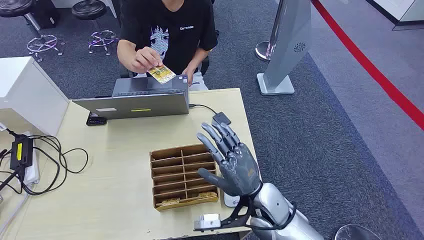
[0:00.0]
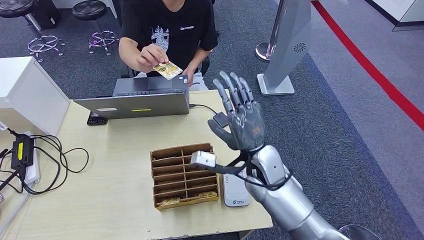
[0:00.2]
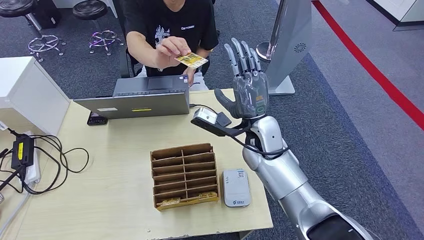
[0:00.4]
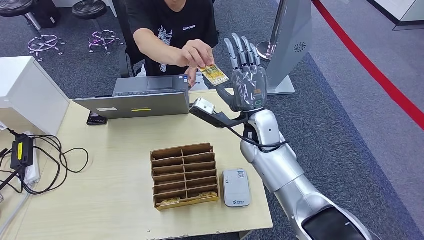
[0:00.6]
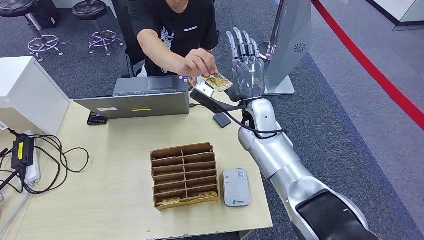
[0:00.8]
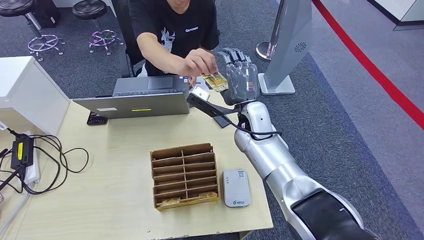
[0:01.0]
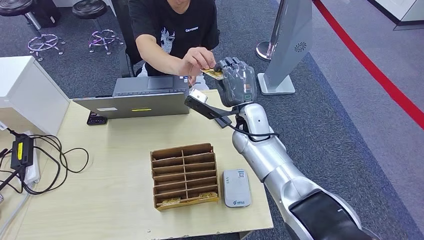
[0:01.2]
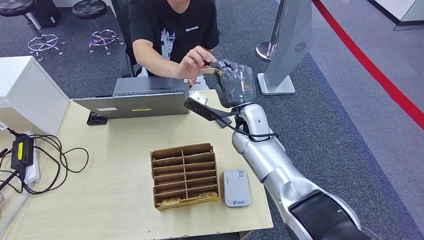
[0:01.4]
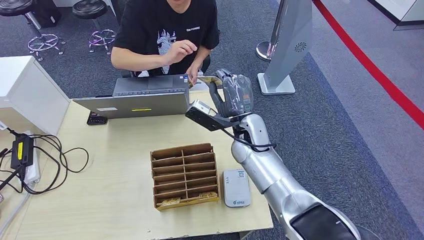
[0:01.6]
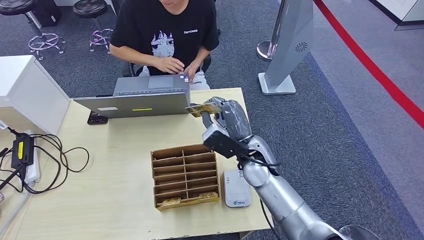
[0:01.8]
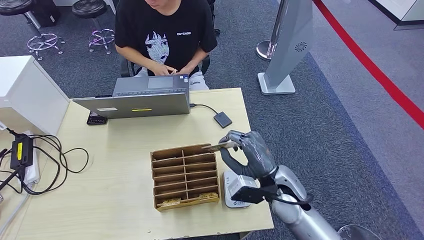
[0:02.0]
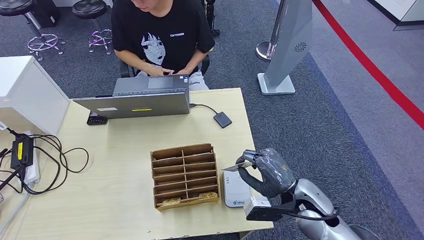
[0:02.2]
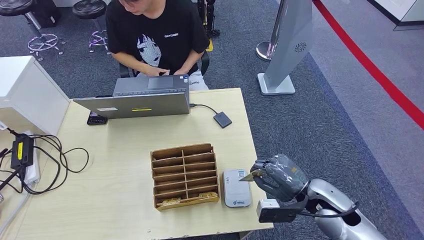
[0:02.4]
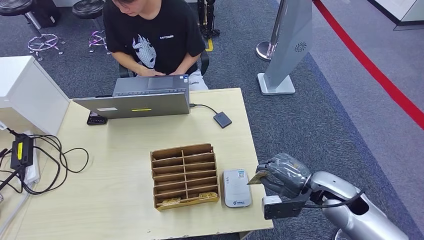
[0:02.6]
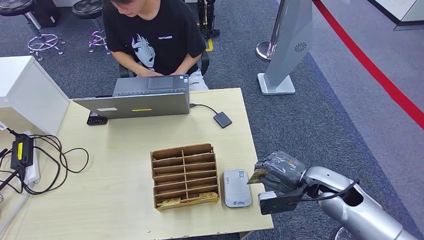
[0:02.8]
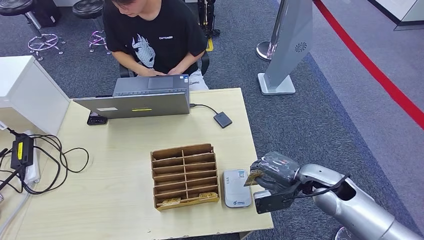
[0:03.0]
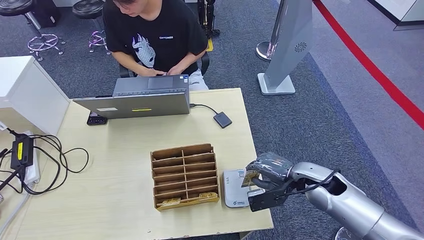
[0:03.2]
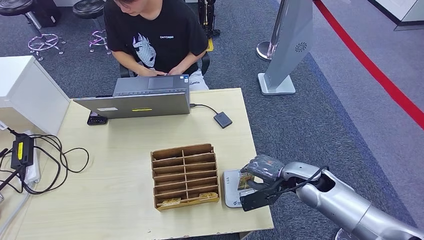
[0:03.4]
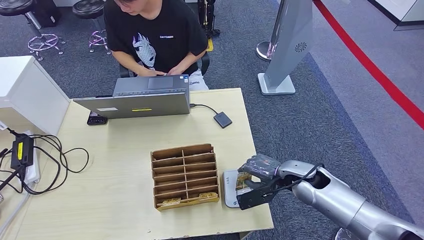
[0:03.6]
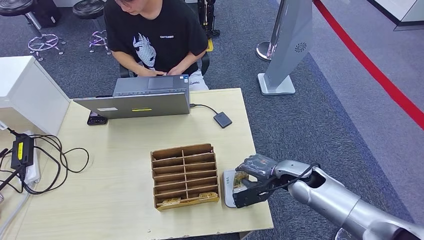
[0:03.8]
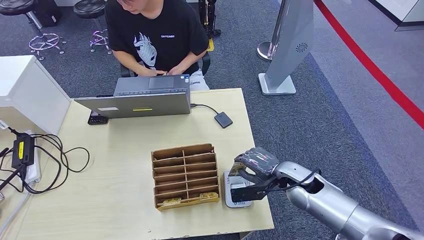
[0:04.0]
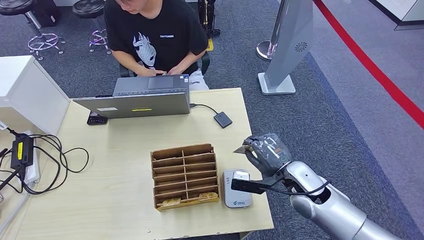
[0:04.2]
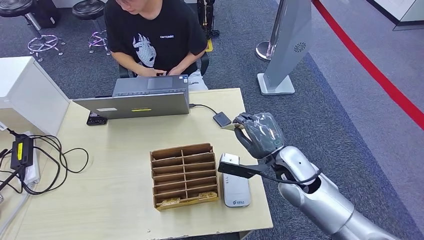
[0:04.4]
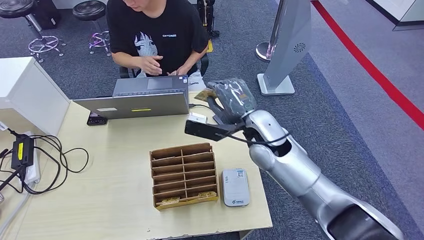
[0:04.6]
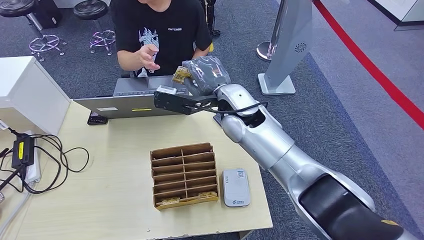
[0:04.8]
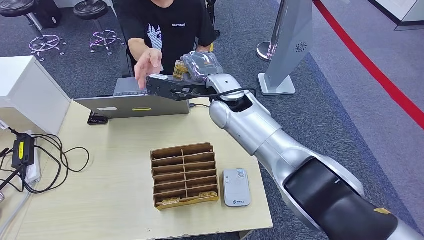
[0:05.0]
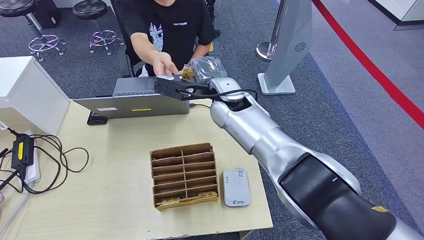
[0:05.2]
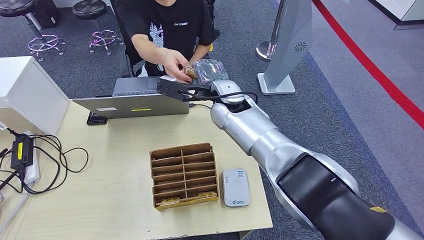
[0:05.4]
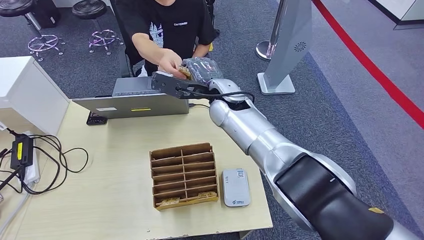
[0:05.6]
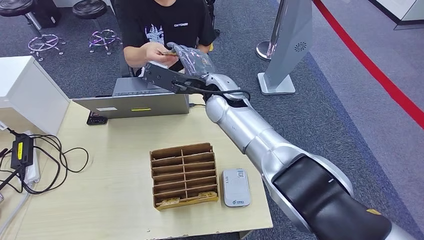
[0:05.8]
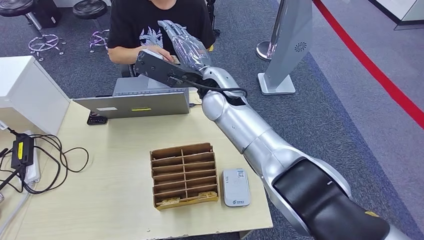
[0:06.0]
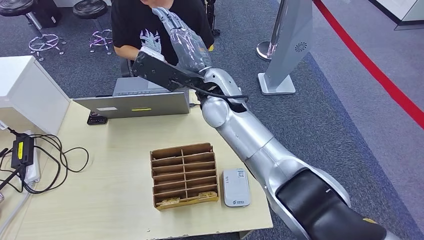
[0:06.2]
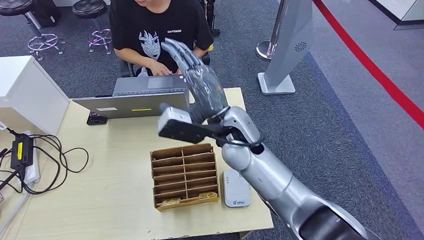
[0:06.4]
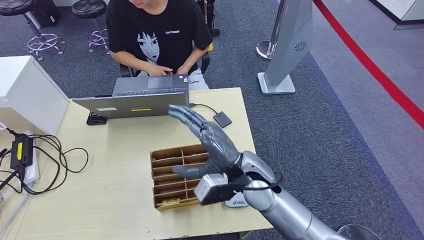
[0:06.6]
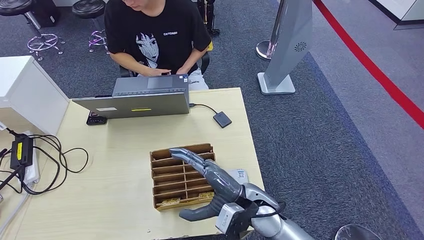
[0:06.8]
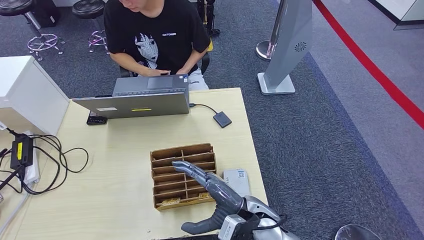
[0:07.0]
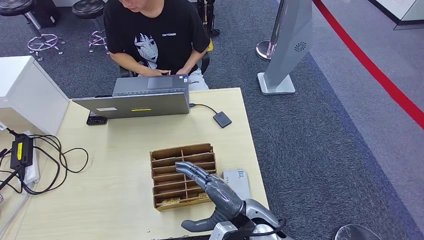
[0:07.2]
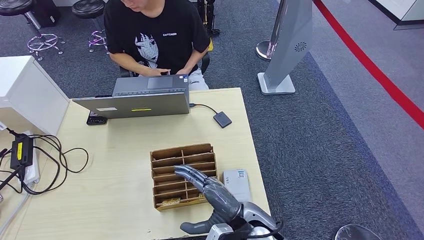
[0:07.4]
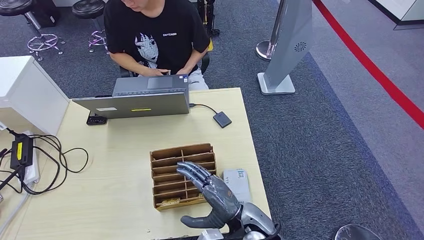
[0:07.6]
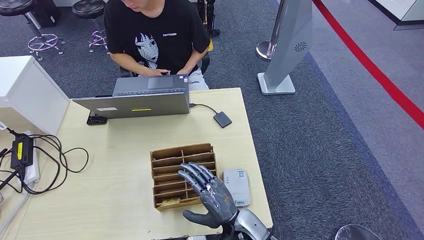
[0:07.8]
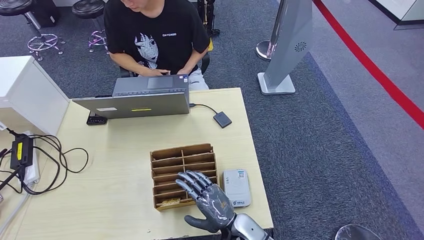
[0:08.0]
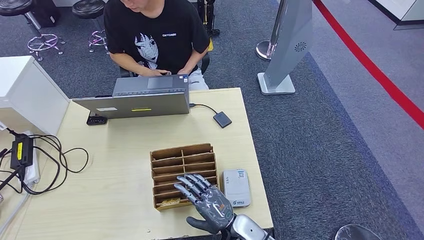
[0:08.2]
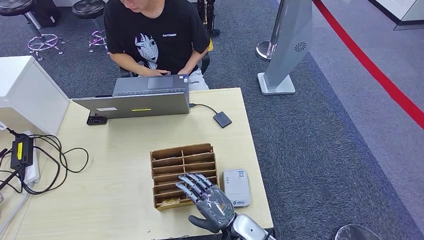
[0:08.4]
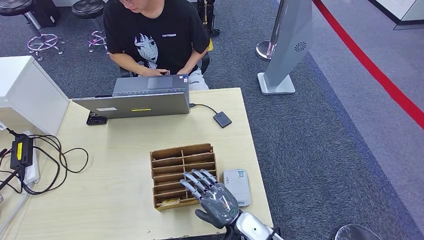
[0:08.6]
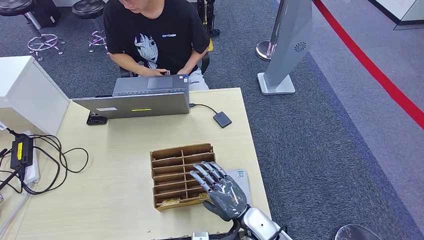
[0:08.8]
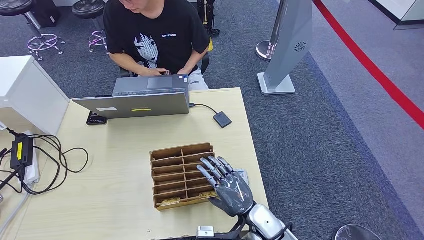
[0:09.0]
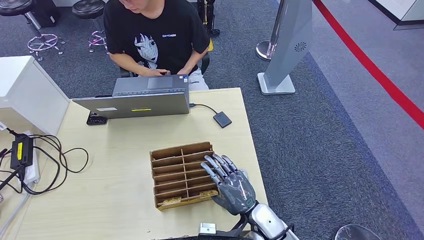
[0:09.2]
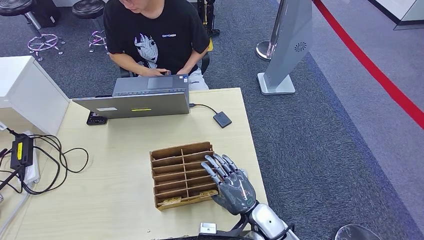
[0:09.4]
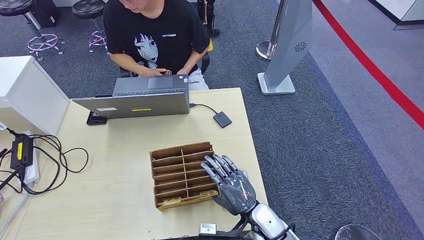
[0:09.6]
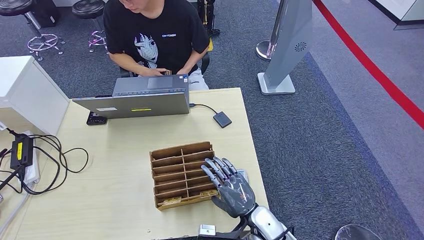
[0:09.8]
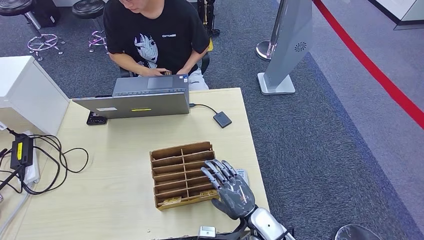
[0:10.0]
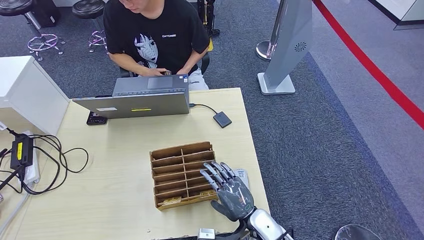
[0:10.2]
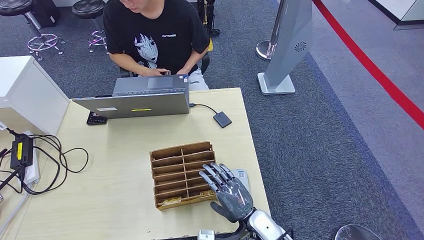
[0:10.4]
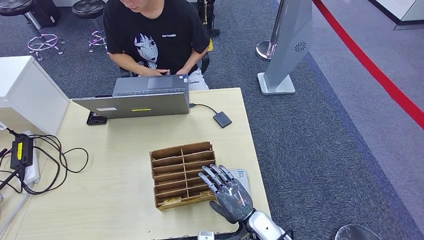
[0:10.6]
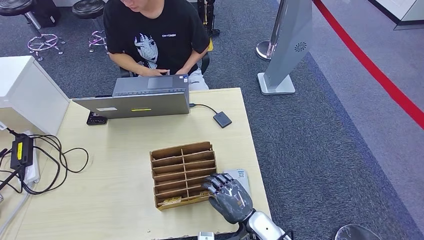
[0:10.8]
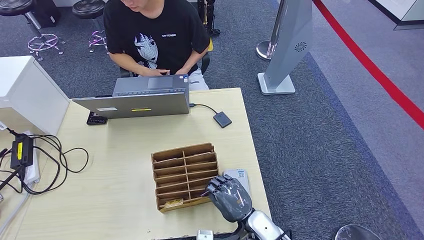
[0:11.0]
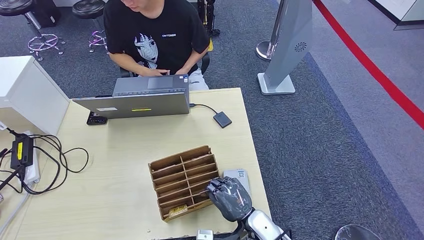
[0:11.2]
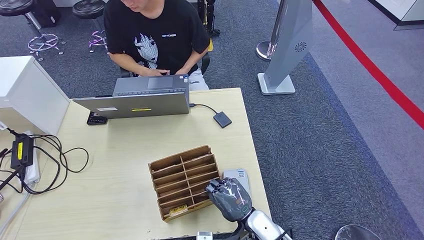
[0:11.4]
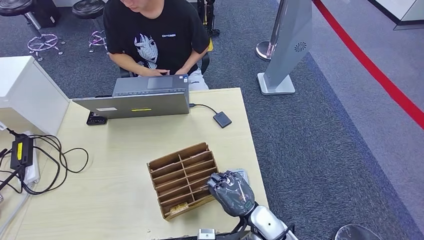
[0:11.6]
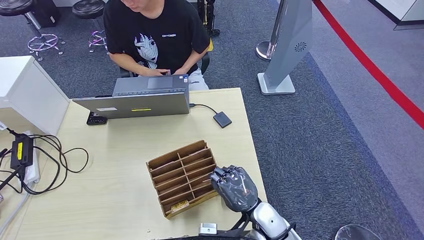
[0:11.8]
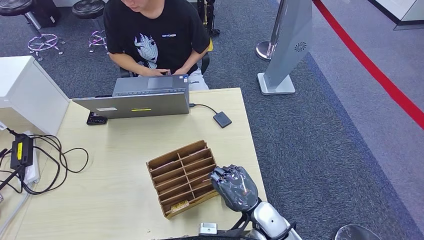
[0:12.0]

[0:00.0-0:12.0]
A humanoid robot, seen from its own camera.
Step, 0:00.0 to 0:02.4: Take the ID card from the person's hand.
Step, 0:02.6 to 0:05.2: Place the ID card on the card reader.
Step, 0:05.4 to 0:08.4: Hand the ID card to the person.
0:01.6 to 0:03.0: The right hand shifts some 25 cm to the right and backward.
0:03.0 to 0:04.4: The right hand moves to the left, about 10 cm.
0:04.4 to 0:06.0: The right hand goes roughly 25 cm to the left, upward and forward.
0:06.0 to 0:07.6: The right hand travels backward and downward by approximately 35 cm.
0:07.6 to 0:09.0: The right hand moves roughly 5 cm.
0:09.0 to 0:12.0: The hands make only small movements.

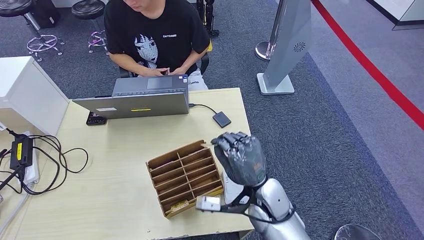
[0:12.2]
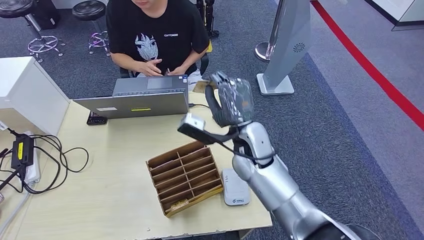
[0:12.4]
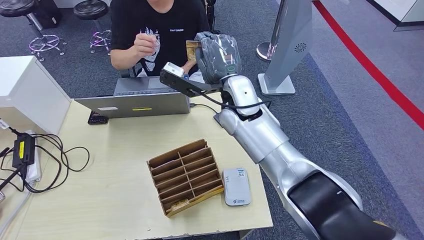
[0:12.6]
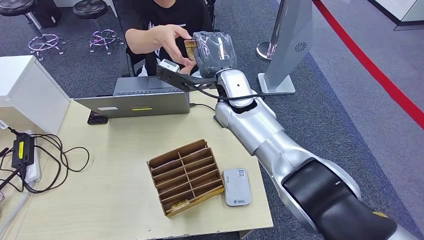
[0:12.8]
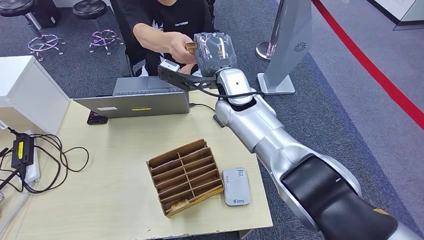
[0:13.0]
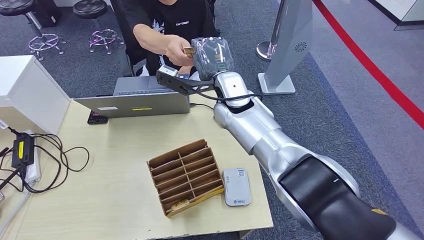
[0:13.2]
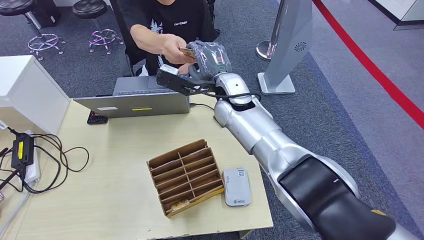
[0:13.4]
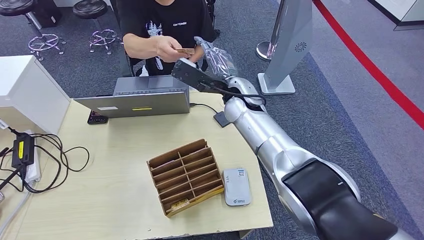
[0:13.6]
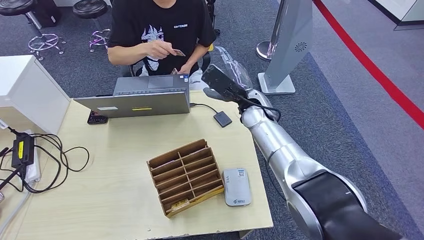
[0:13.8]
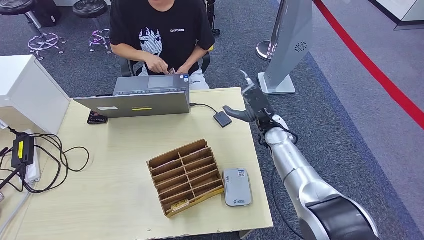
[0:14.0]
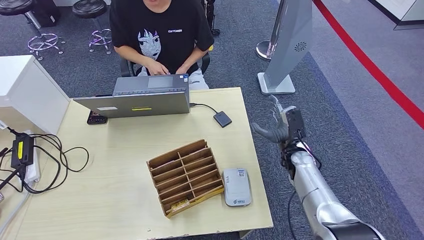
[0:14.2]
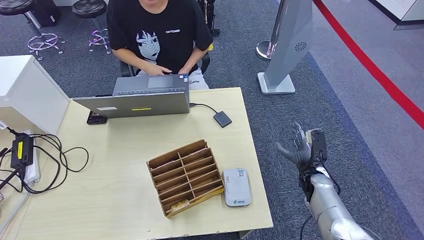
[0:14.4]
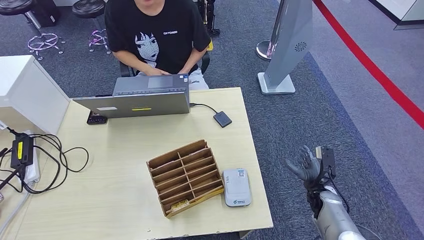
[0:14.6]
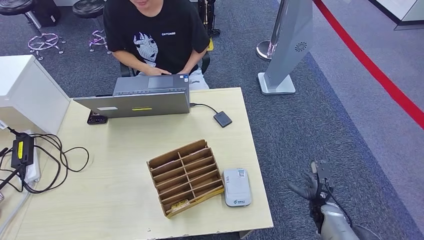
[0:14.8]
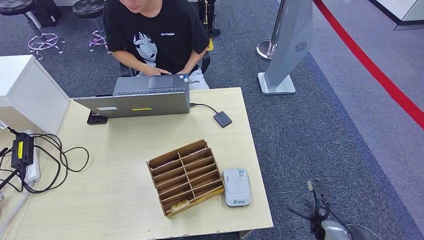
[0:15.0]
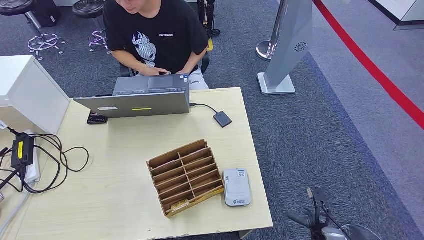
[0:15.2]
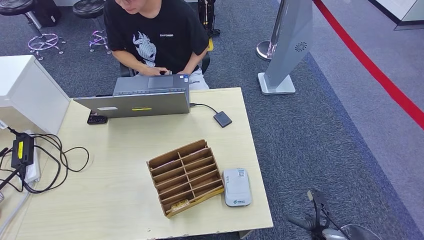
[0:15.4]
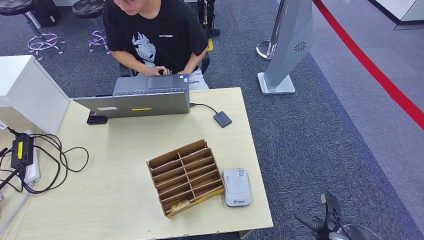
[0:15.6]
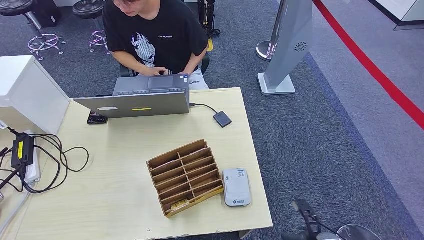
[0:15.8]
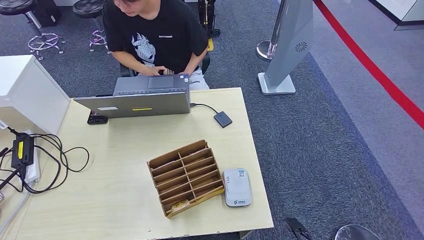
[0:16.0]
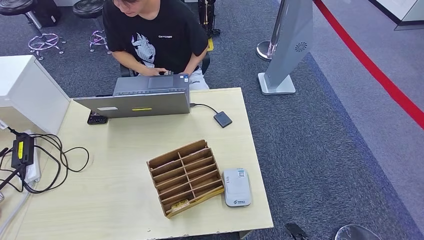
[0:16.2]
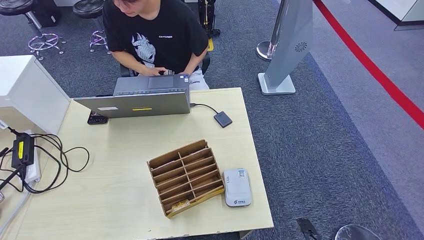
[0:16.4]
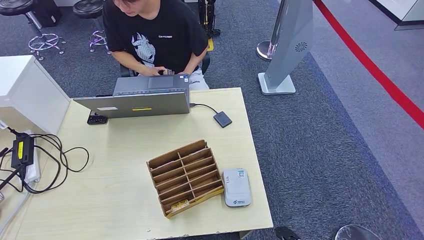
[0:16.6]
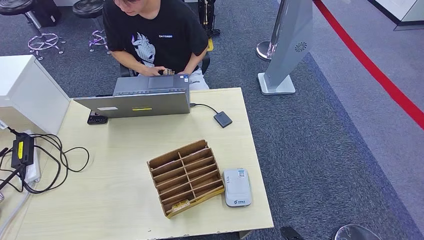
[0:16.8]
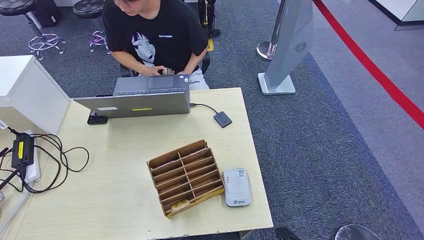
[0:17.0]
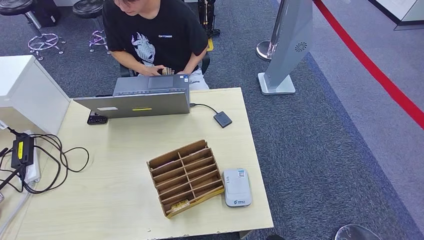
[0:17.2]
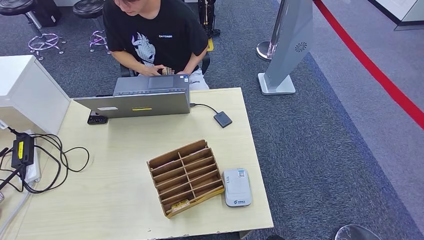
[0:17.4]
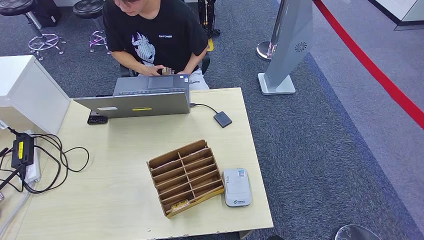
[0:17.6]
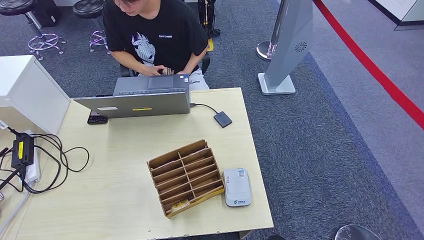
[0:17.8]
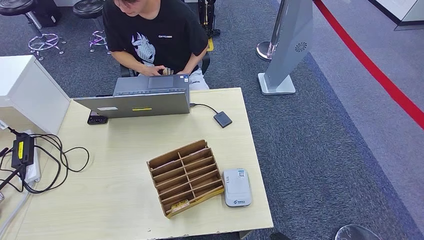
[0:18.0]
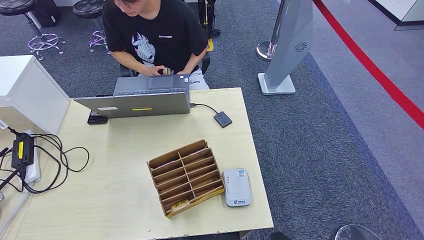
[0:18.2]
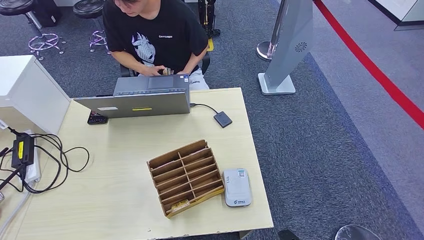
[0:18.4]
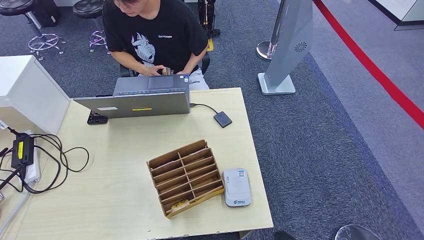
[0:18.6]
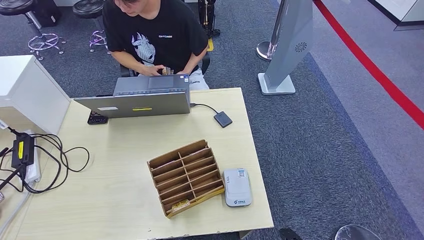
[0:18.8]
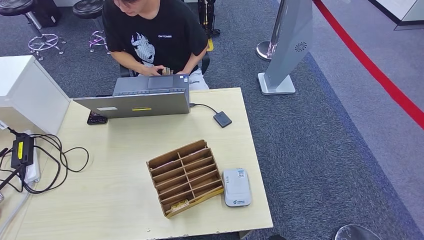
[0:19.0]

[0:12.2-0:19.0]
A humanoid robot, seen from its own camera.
0:13.6 to 0:15.0: The right hand goes approximately 50 cm downward, backward and to the right.
0:15.0 to 0:16.2: The right hand heads backward, covering roughly 10 cm.
